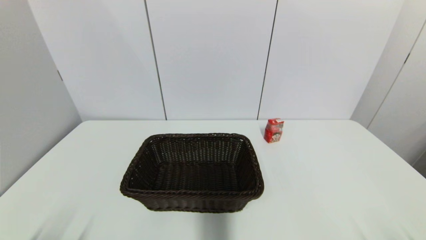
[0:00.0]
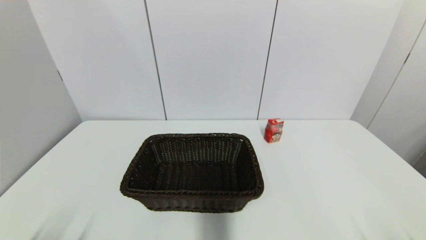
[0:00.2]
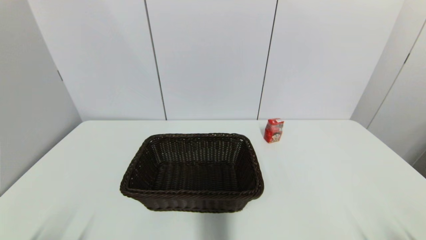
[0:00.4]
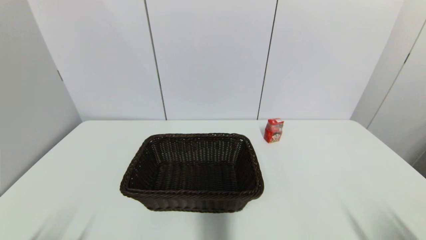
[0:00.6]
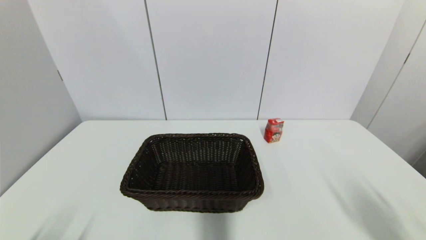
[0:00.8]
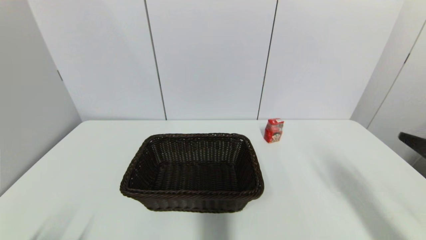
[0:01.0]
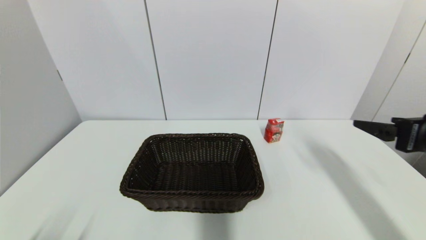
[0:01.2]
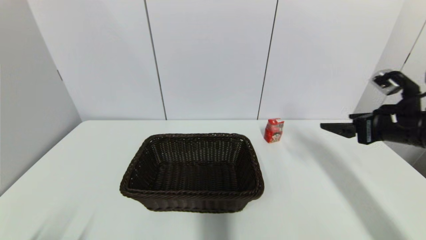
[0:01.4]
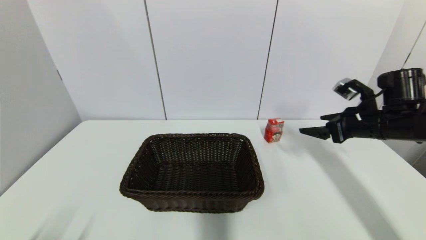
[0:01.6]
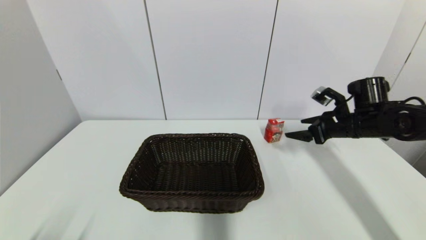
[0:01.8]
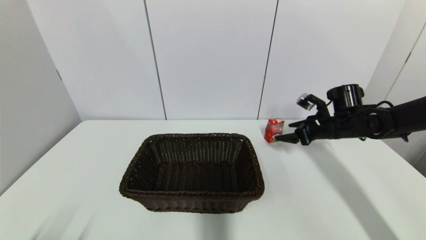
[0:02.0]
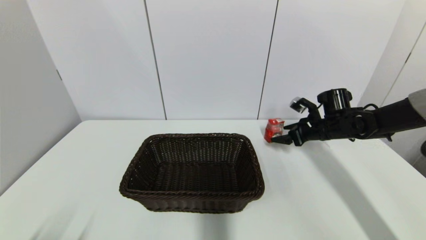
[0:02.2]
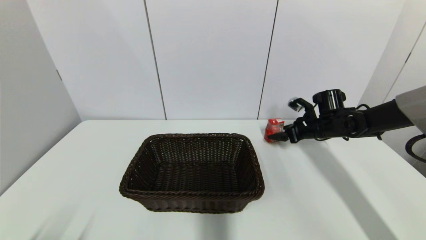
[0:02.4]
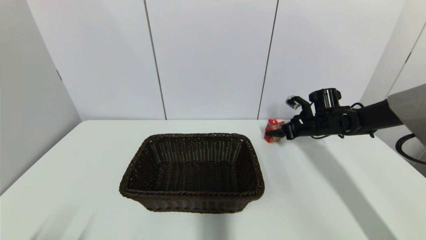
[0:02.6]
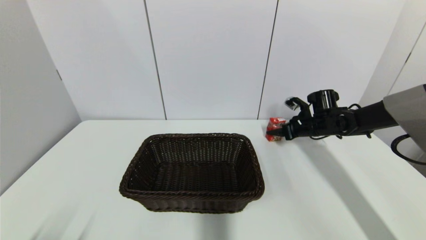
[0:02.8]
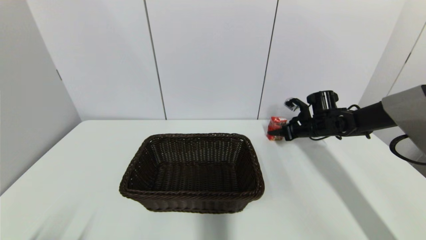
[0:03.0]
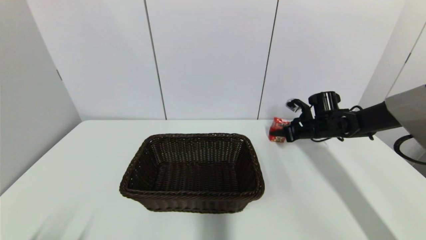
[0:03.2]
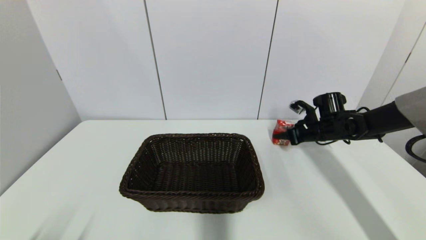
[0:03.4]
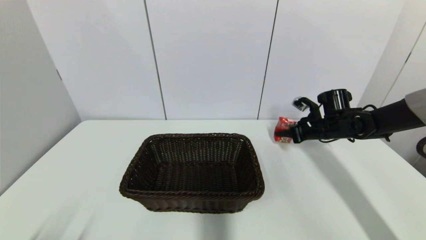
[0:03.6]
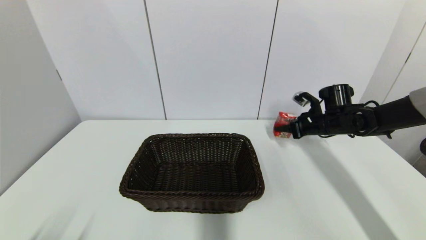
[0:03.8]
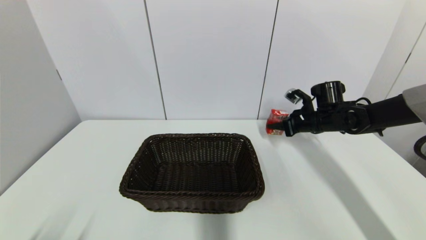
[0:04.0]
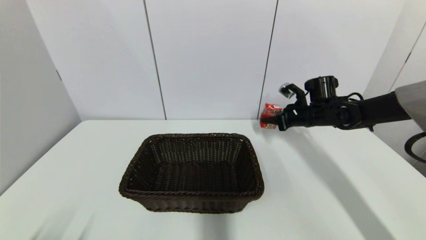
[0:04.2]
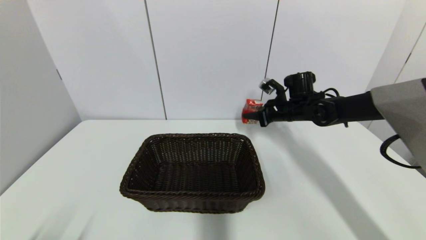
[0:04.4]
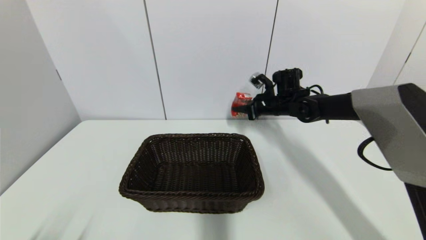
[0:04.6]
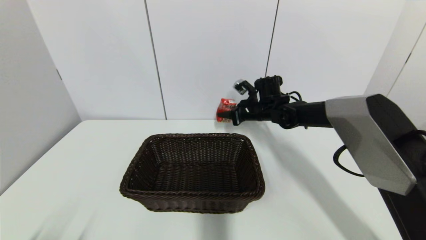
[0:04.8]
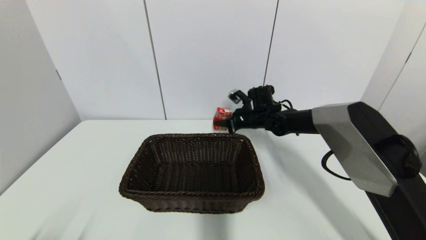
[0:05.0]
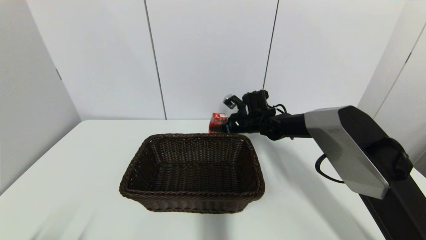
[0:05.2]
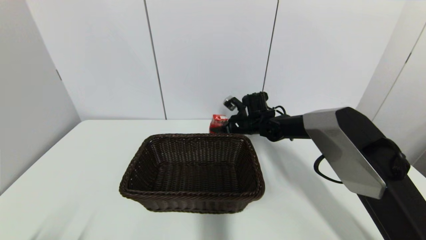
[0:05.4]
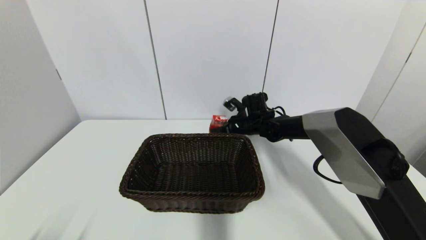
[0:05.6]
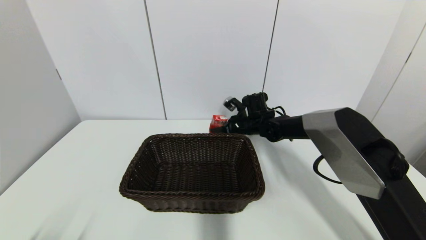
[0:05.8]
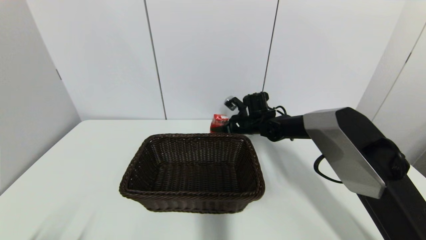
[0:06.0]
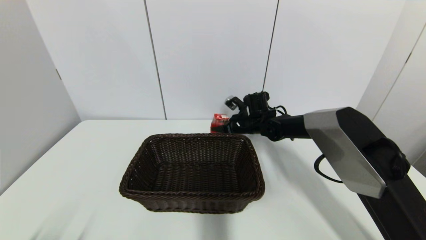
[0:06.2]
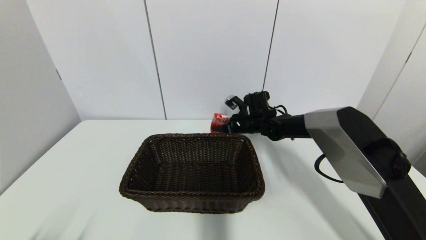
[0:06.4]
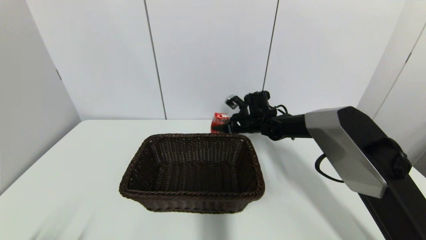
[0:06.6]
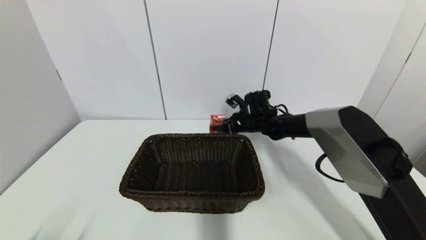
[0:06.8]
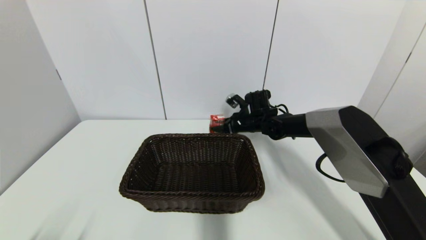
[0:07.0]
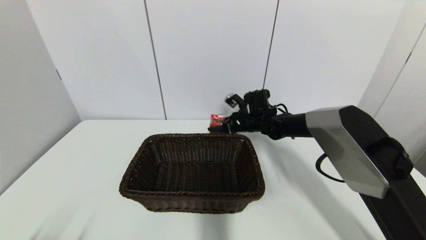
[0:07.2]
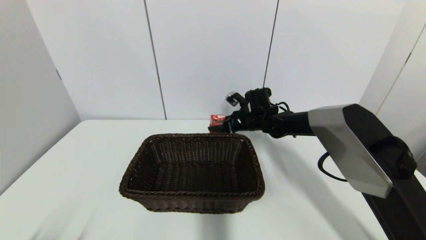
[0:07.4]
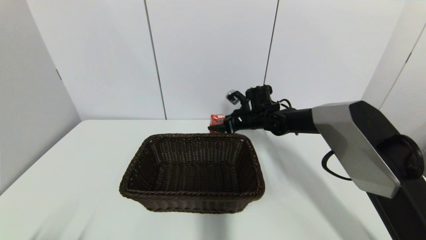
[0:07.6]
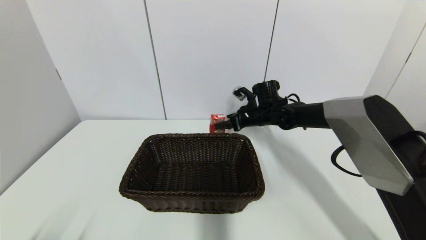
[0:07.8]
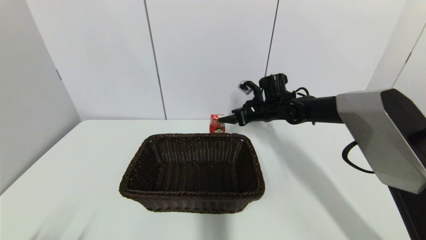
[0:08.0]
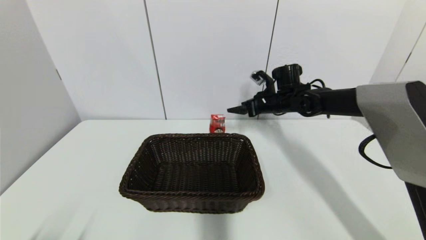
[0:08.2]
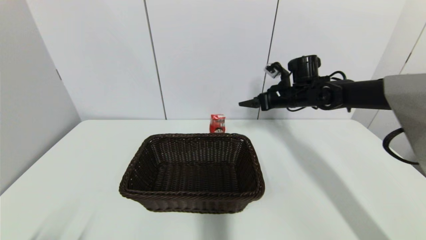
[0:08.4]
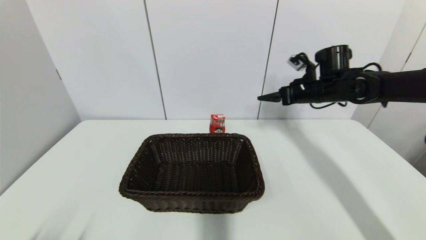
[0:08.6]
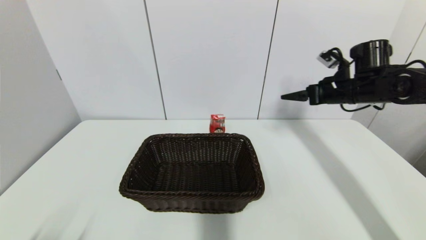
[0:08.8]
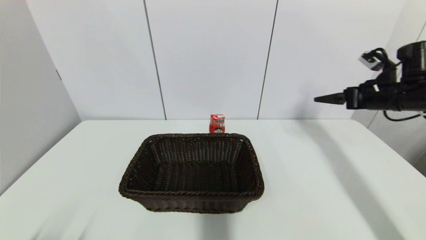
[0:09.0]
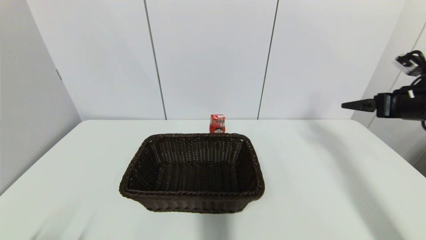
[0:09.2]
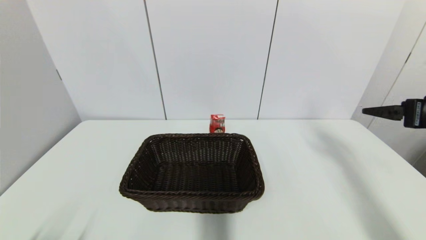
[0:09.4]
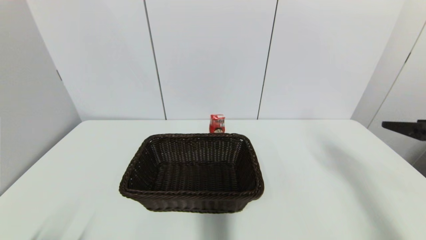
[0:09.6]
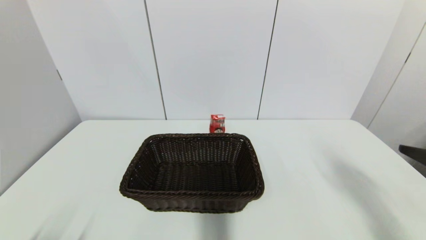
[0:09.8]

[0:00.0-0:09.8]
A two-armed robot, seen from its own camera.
Step, 1.0 to 3.2 s: Grasp the wangzai milk with right gripper.
Step, 3.4 to 6.8 s: Place the wangzai milk on the table with right gripper.
0.0 to 1.4 s: The right gripper moves forward and upward, approximately 30 cm.
1.4 to 2.8 s: The right gripper travels forward and downward by some 20 cm, and closes.
2.8 to 4.2 s: The right gripper shifts by roughly 5 cm, and closes up.
4.2 to 5.6 s: The right gripper moves to the left and downward, approximately 15 cm.
5.6 to 7.0 s: The right gripper opens.
7.0 to 8.4 s: The right gripper goes roughly 15 cm to the right and upward, and opens.
8.4 to 9.8 s: The right gripper travels backward by about 35 cm.

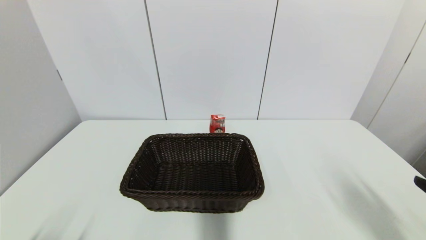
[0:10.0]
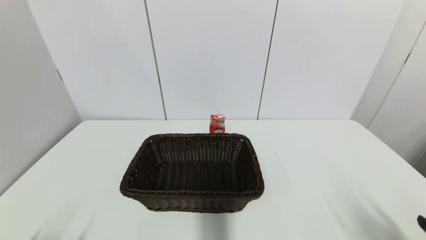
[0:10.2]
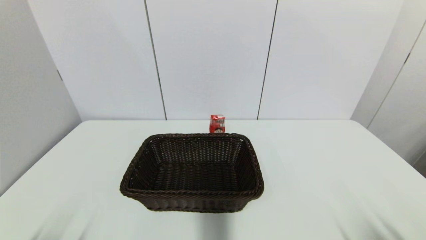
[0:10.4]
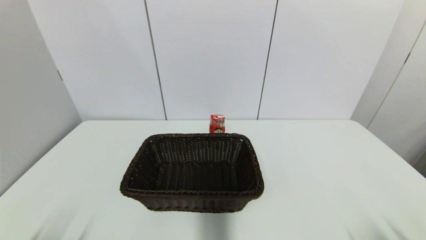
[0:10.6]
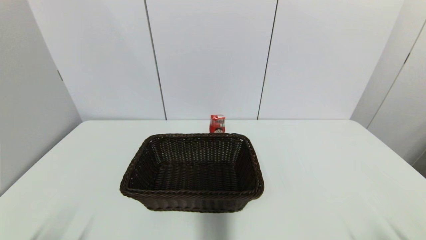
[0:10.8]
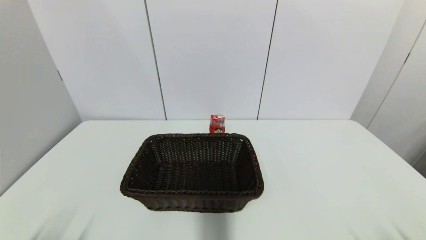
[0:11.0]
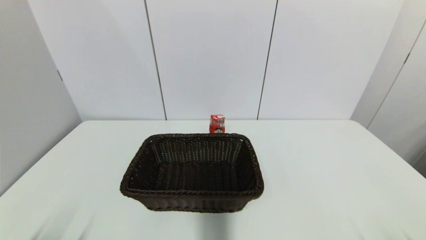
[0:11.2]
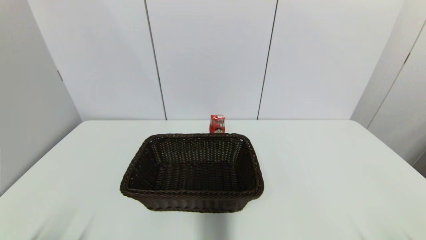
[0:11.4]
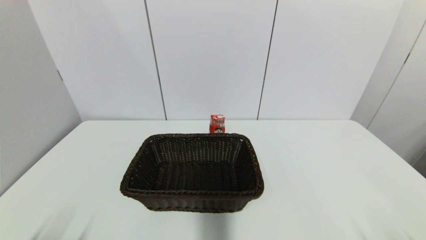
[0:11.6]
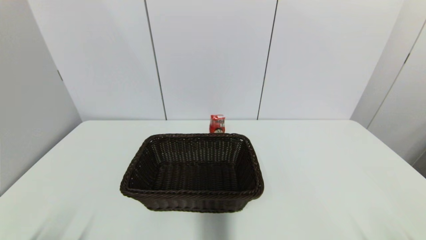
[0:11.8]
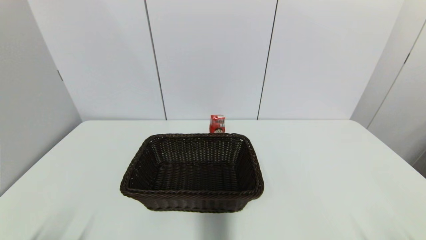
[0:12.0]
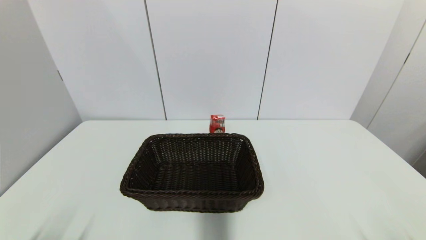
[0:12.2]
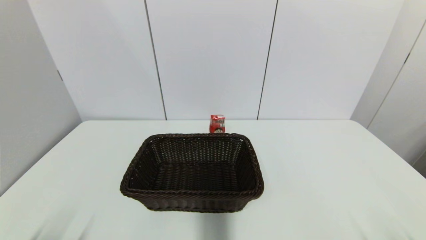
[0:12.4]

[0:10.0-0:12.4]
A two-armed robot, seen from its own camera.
10.0 to 11.2 s: The right gripper shifts roughly 15 cm downward and backward.
11.2 to 12.4 s: Neither gripper changes place.

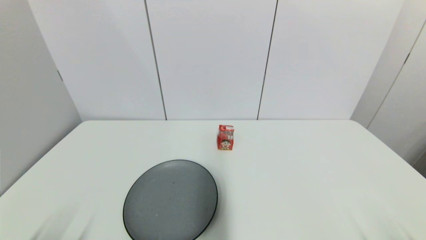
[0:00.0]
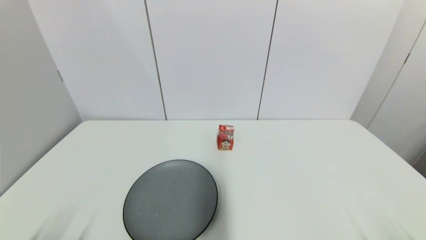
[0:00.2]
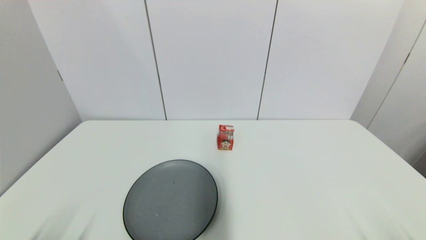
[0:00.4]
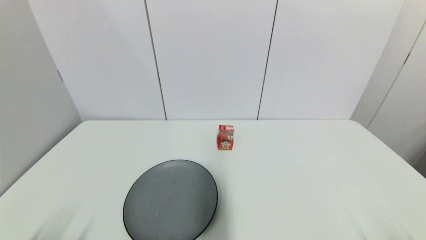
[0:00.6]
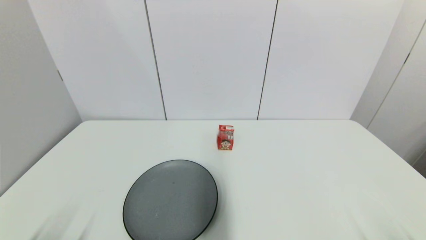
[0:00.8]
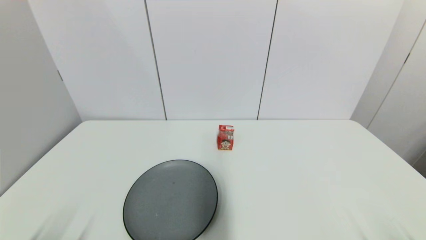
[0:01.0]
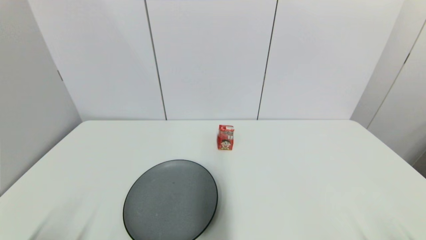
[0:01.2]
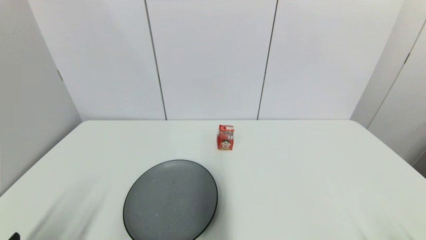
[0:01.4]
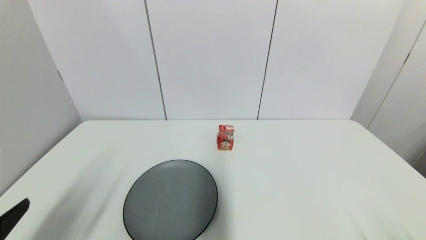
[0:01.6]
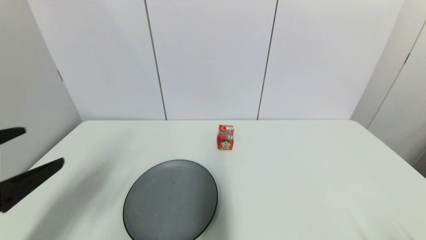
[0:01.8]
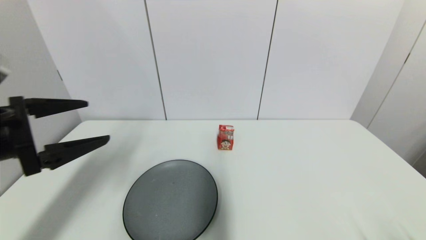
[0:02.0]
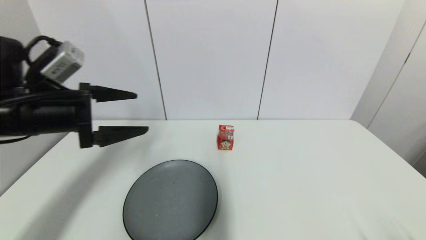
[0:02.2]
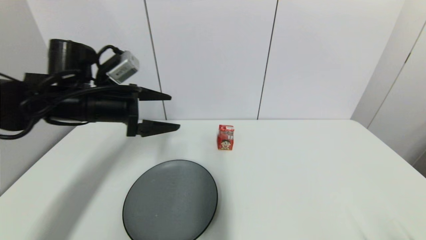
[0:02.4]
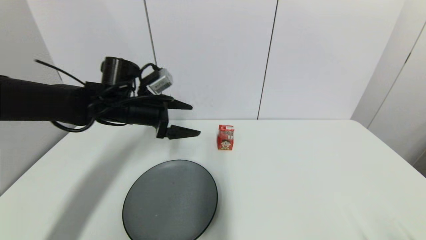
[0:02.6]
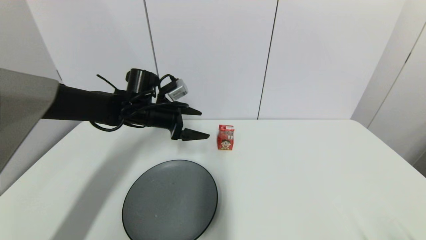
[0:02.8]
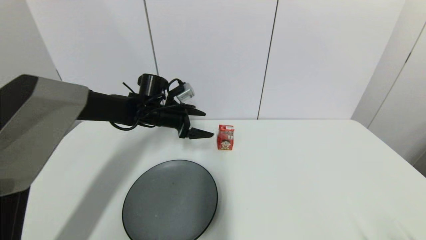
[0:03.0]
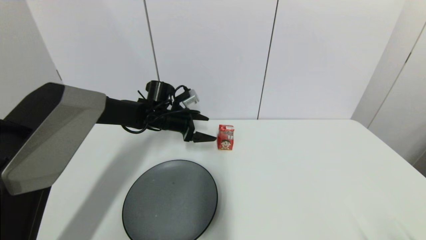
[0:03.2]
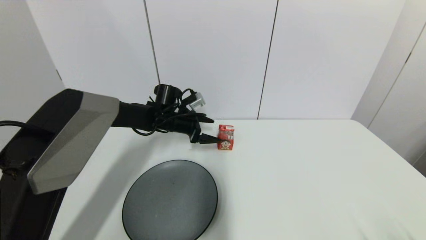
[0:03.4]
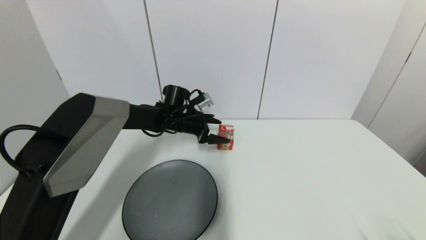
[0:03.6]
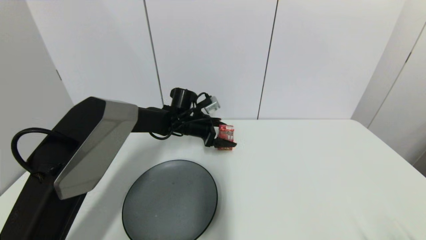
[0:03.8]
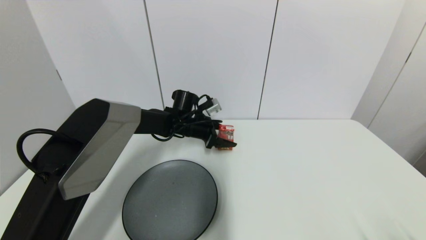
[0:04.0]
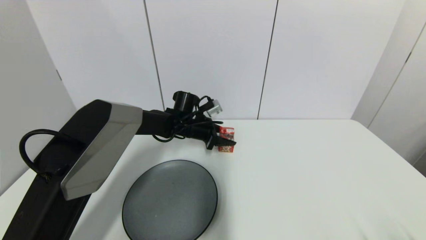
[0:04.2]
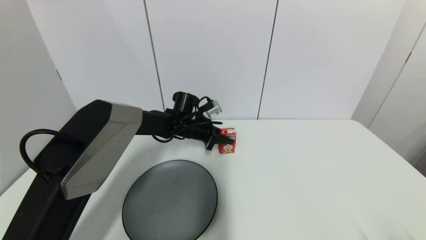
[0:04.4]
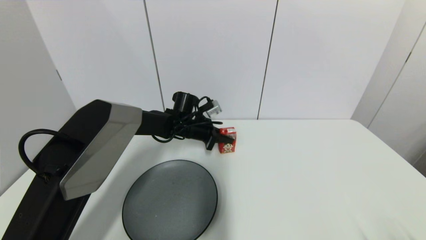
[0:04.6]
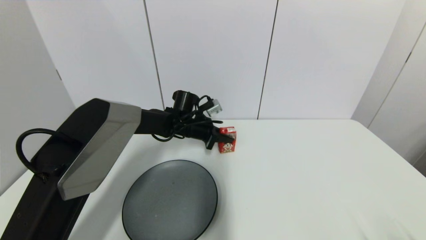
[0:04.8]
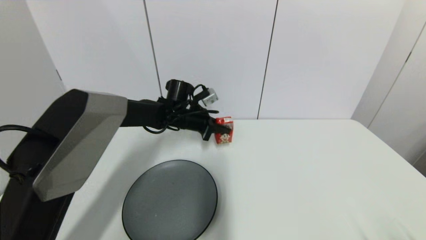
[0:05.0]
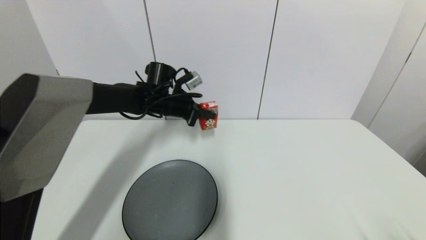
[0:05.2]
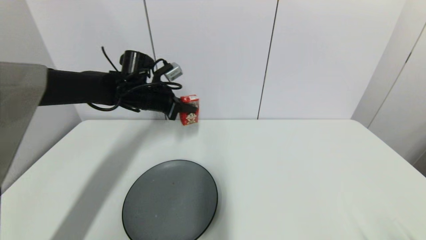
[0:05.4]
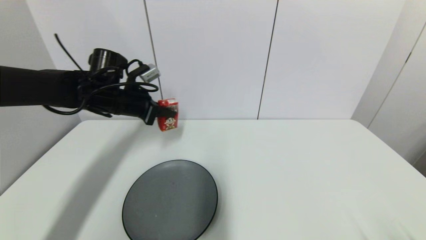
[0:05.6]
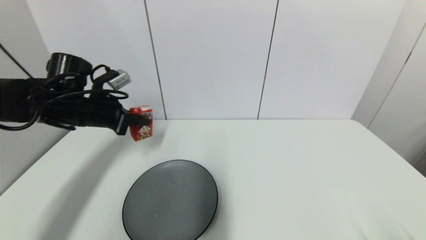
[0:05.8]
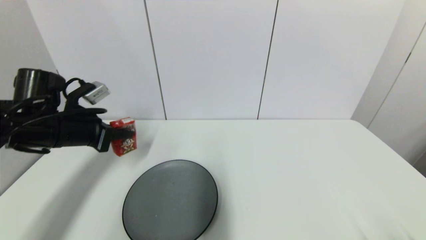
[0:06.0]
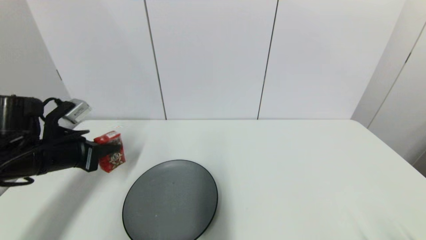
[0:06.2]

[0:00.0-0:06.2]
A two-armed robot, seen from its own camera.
Step, 1.4 to 4.4 s: Grasp the wangzai milk with left gripper.
0.0 to 1.6 s: The left gripper is displaced upward by about 10 cm.
1.6 to 3.2 s: The left gripper goes some 40 cm forward and to the right.
3.2 to 4.6 s: The left gripper goes about 5 cm to the right, and closes.
4.6 to 6.2 s: The left gripper travels to the left and backward by about 30 cm.
